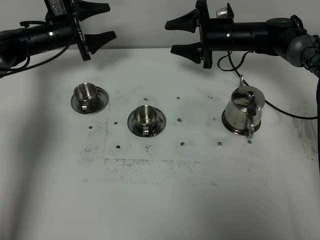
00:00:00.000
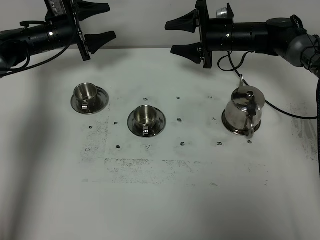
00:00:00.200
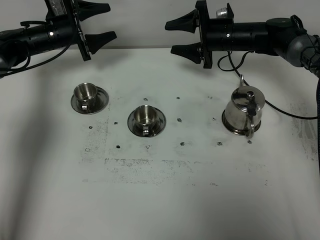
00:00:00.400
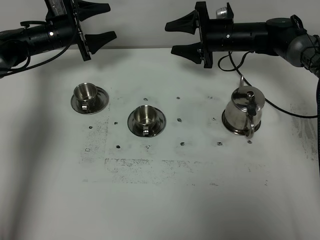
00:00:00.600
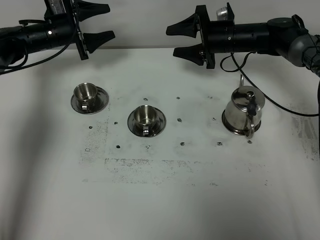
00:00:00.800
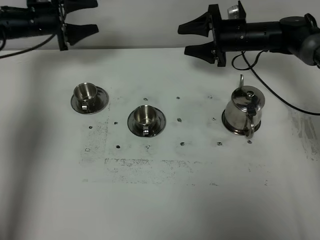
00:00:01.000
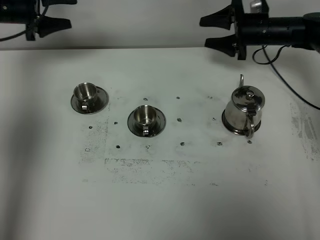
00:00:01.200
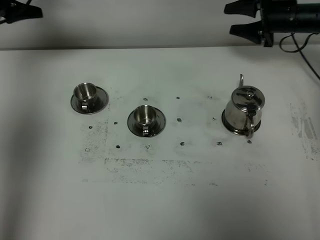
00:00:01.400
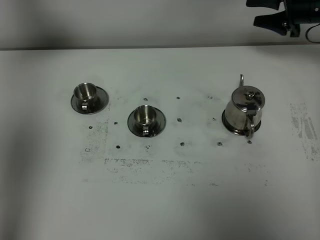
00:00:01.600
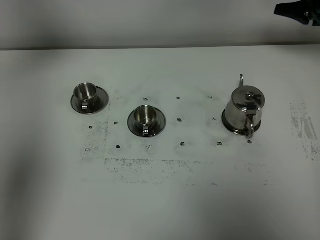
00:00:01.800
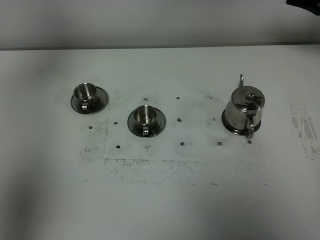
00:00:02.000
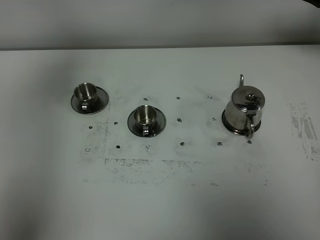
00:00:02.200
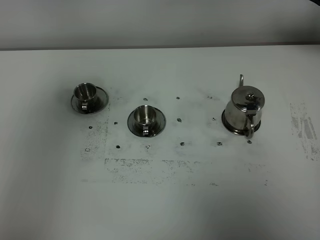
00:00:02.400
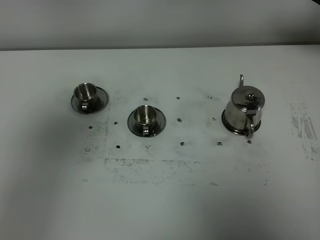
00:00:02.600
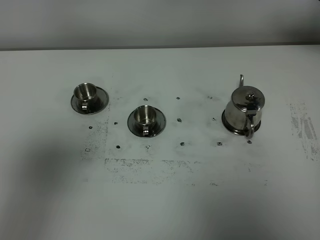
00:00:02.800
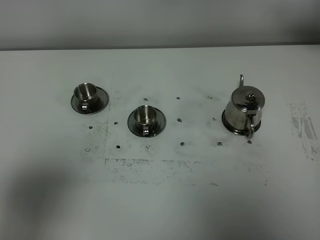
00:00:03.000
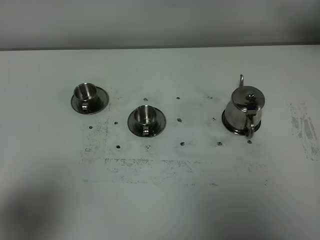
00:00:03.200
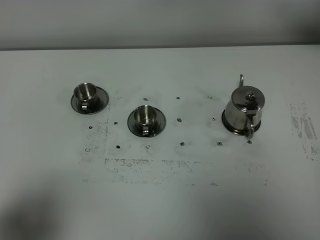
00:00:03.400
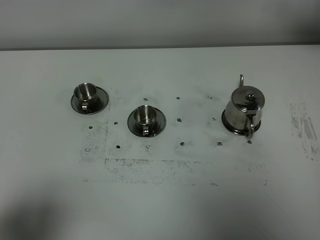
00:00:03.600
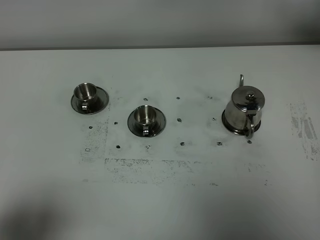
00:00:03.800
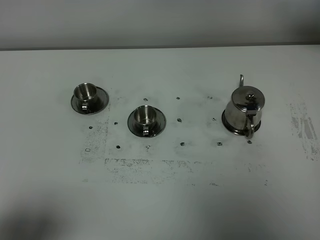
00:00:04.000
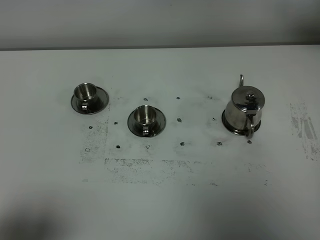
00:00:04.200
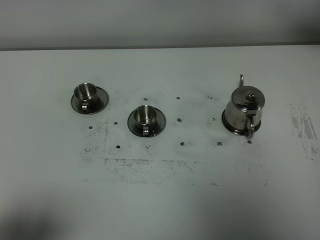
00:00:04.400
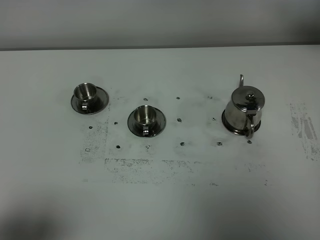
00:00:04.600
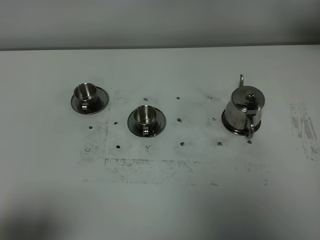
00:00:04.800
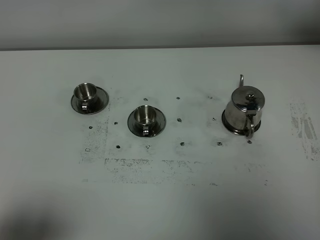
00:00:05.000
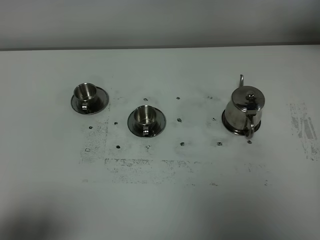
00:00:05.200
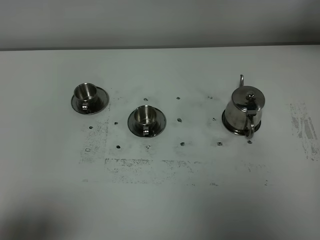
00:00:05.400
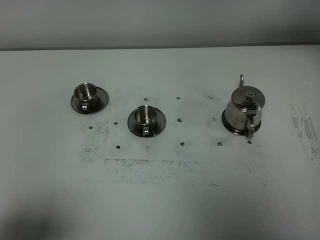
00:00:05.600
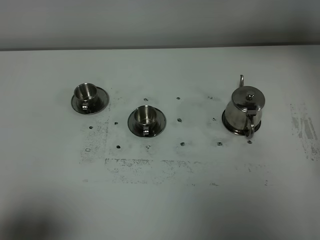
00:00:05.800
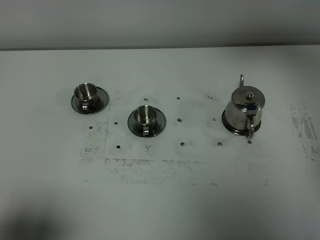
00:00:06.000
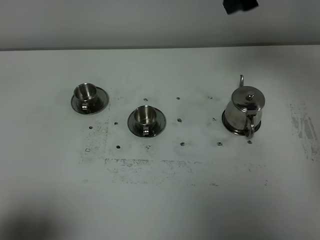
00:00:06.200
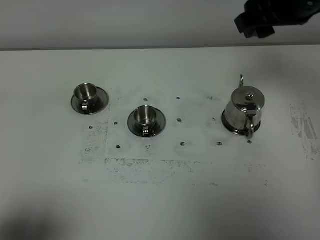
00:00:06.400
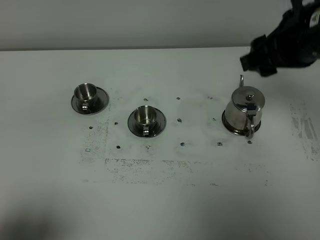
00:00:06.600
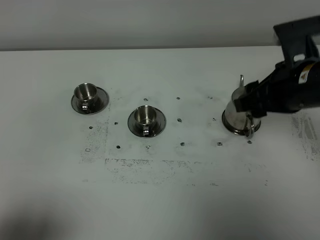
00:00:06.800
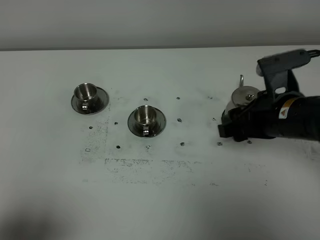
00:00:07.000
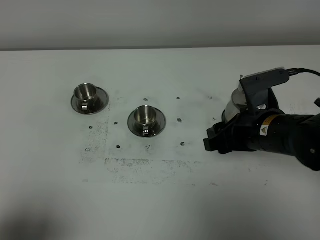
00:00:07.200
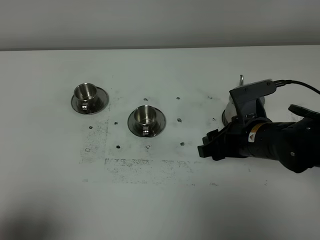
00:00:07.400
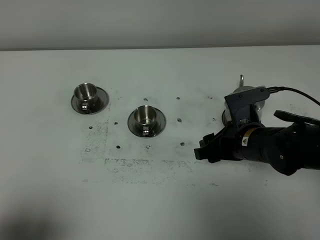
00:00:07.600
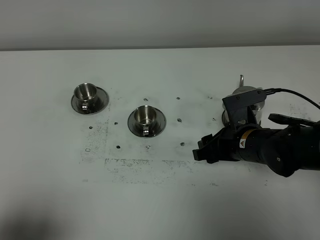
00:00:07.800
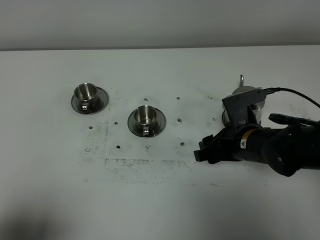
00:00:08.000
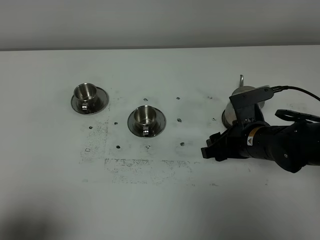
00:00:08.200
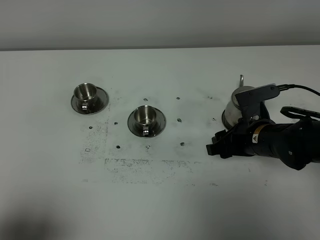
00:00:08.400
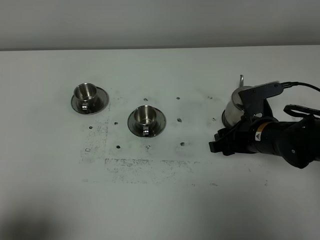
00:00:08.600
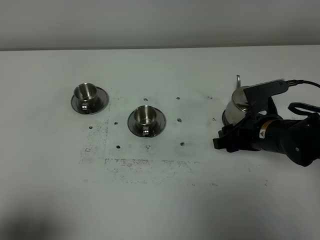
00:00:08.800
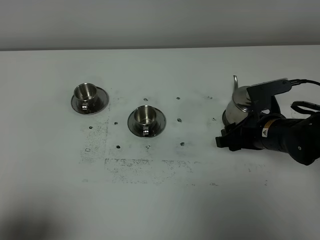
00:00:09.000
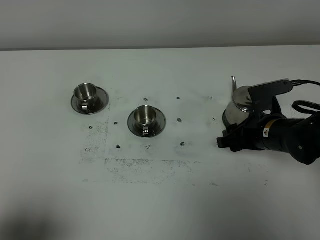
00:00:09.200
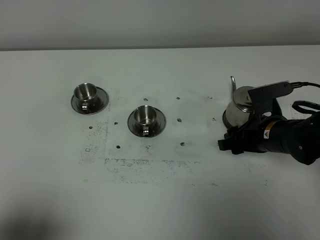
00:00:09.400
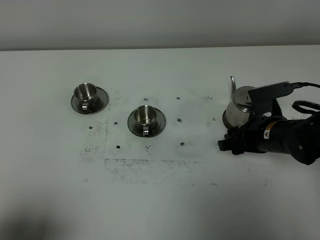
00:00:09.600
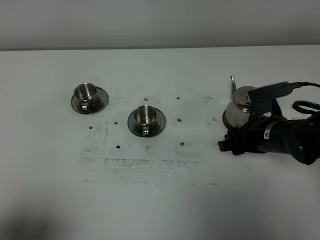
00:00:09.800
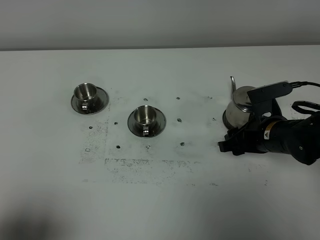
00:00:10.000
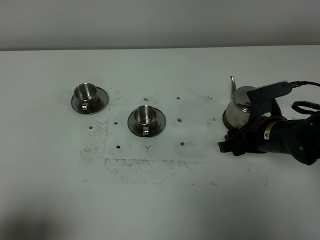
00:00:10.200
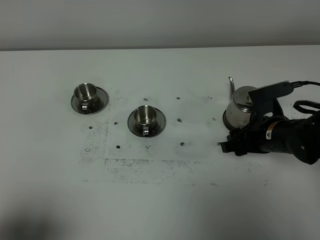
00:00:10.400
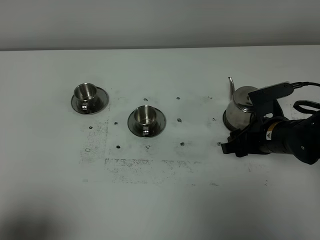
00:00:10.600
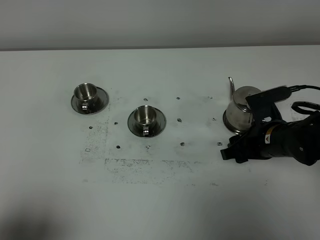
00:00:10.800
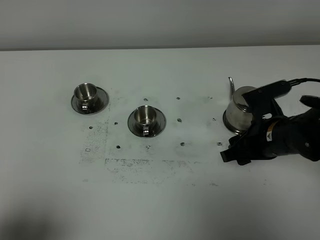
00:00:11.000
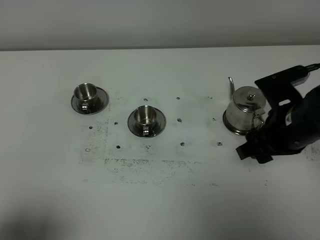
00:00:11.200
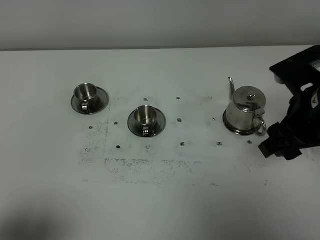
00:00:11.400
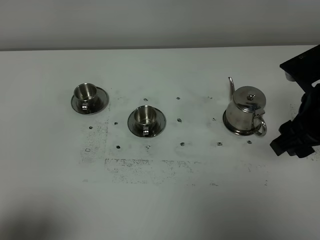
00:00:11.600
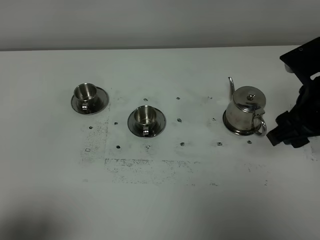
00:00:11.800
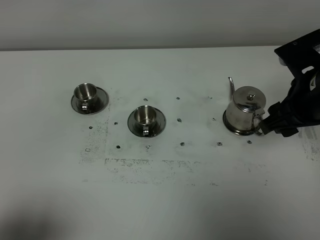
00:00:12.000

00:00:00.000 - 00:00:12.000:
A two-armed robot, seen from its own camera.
Task of the whole recording: grasp the stainless steel teapot and pour the tea into the two stainless steel teacups one by one, put the stainless steel teapot back in its original place.
00:00:00.000 - 00:00:01.600: The right gripper travels to the right and upward by some 20 cm; the left gripper shifts roughly 30 cm upward, to the left and backward.
00:00:01.600 - 00:00:03.000: The right gripper goes about 10 cm upward. The left gripper is displaced backward by approximately 40 cm.
00:00:03.000 - 00:00:04.400: The left gripper shifts about 10 cm downward and backward.
00:00:04.400 - 00:00:06.000: The right gripper heads to the left, upward and backward, covering about 25 cm.
00:00:06.000 - 00:00:07.600: The right gripper travels downward by approximately 30 cm.
00:00:07.600 - 00:00:09.000: The grippers move only a little.
00:00:09.000 - 00:00:10.400: The two grippers keep their place.
00:00:10.400 - 00:00:12.000: The right gripper is displaced upward by about 15 cm.

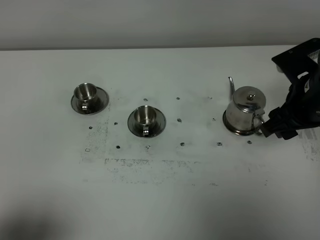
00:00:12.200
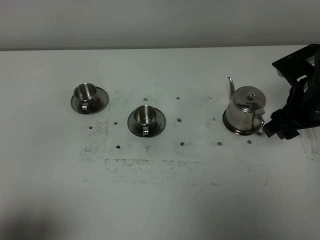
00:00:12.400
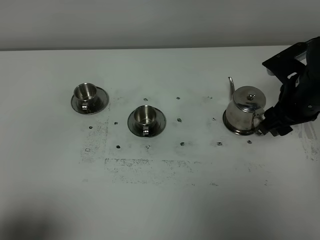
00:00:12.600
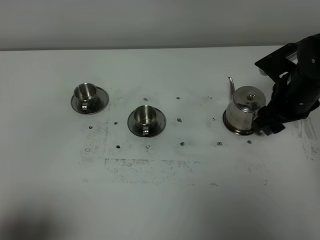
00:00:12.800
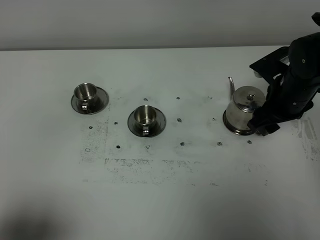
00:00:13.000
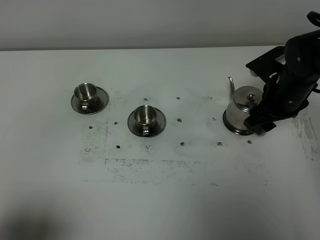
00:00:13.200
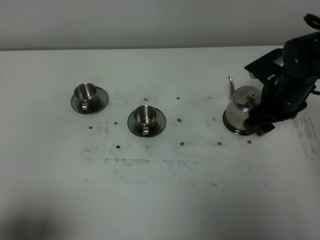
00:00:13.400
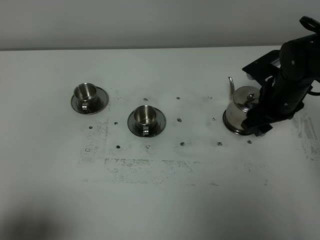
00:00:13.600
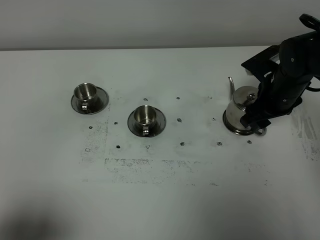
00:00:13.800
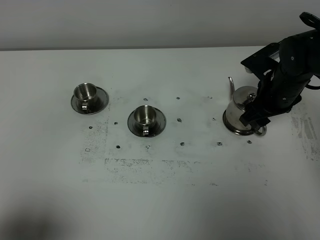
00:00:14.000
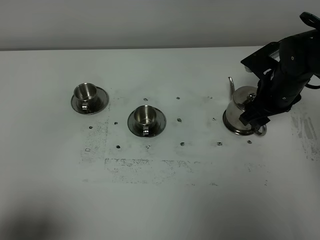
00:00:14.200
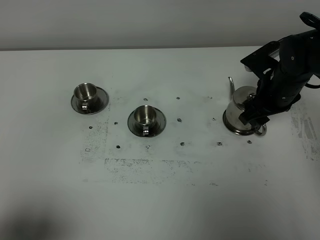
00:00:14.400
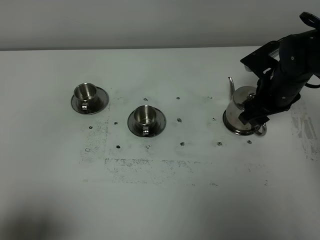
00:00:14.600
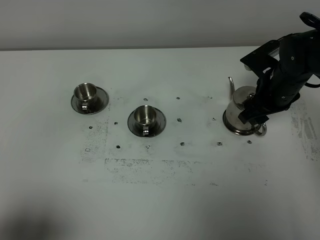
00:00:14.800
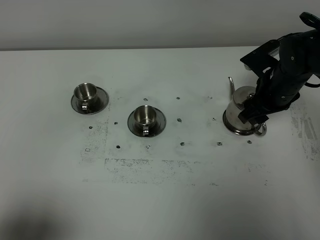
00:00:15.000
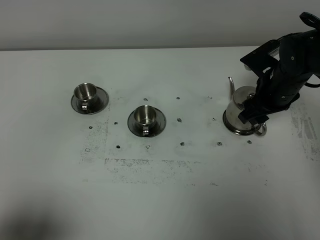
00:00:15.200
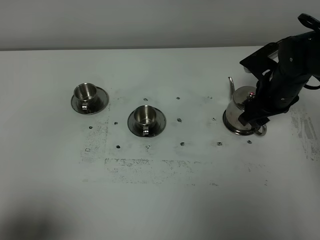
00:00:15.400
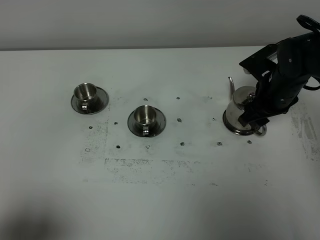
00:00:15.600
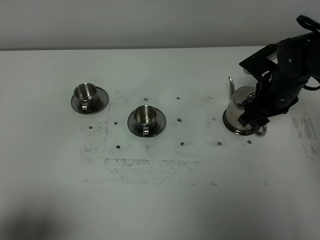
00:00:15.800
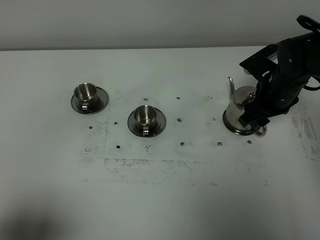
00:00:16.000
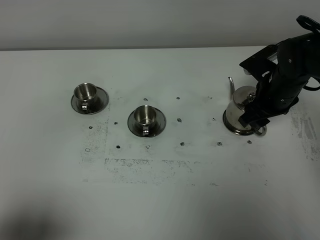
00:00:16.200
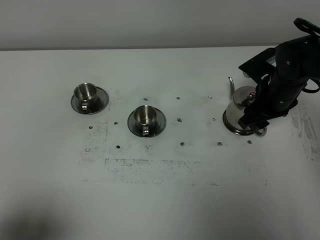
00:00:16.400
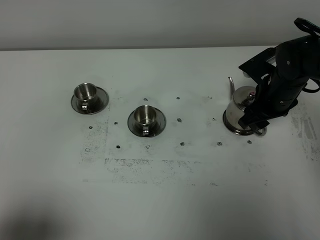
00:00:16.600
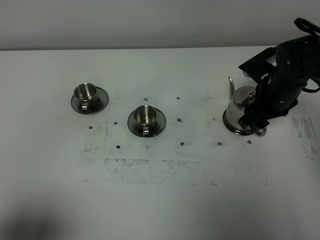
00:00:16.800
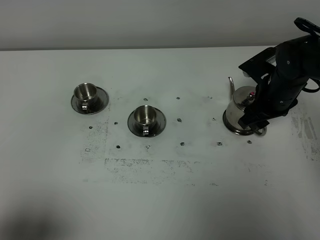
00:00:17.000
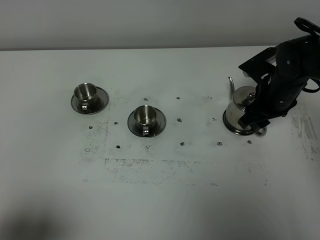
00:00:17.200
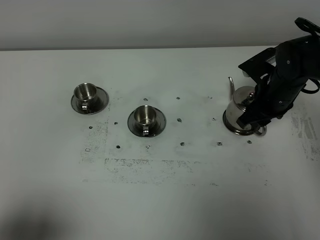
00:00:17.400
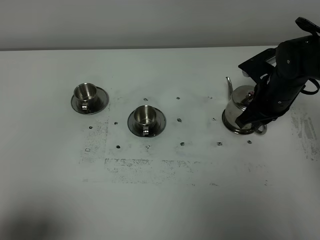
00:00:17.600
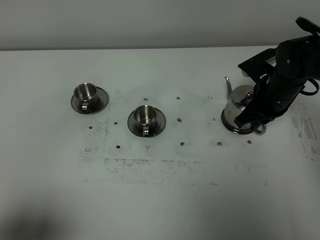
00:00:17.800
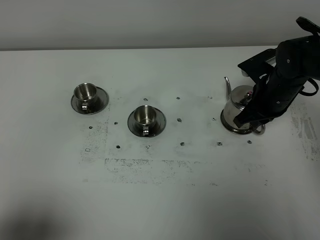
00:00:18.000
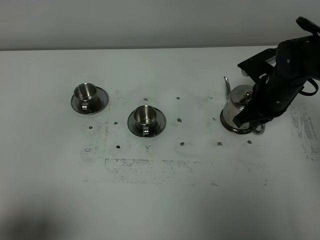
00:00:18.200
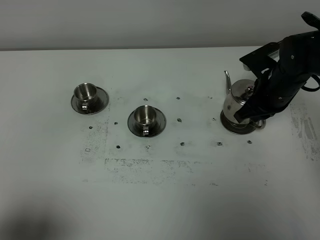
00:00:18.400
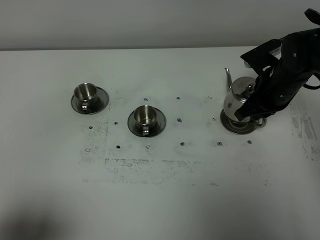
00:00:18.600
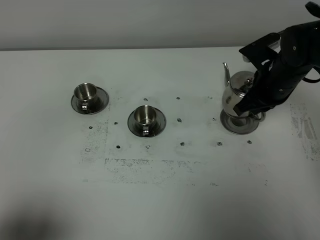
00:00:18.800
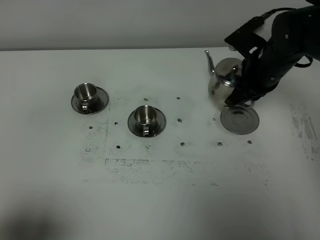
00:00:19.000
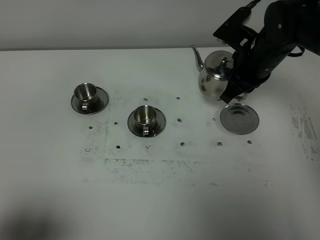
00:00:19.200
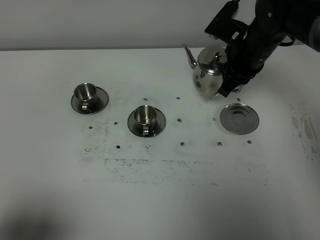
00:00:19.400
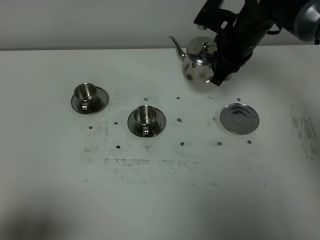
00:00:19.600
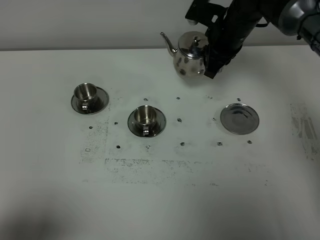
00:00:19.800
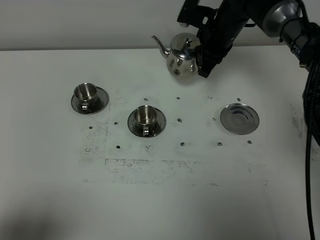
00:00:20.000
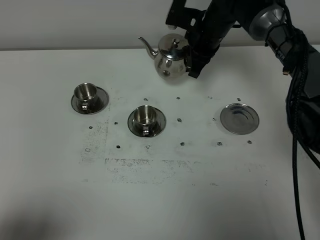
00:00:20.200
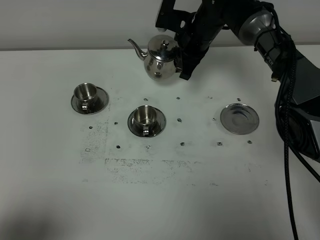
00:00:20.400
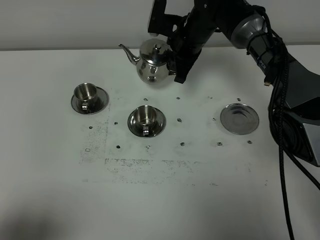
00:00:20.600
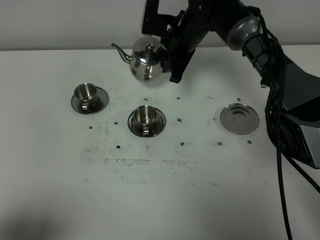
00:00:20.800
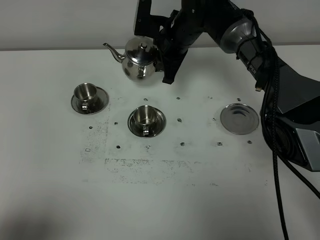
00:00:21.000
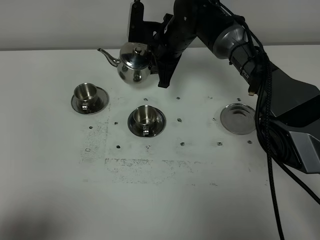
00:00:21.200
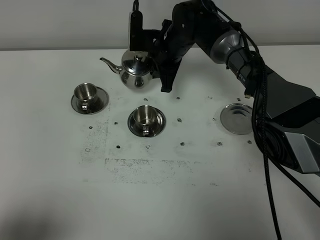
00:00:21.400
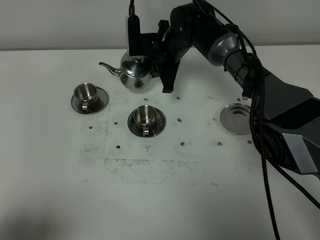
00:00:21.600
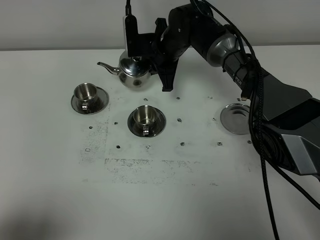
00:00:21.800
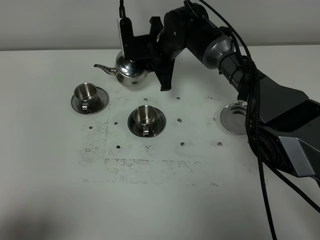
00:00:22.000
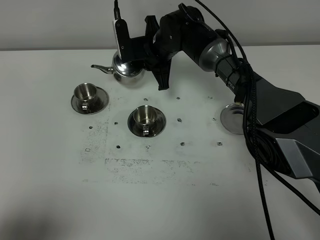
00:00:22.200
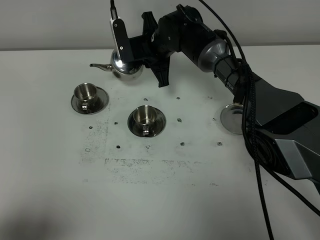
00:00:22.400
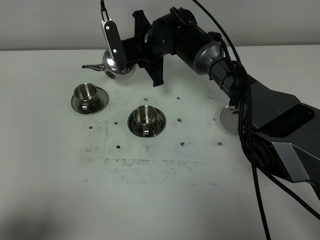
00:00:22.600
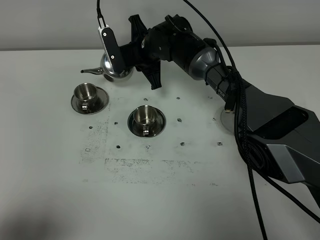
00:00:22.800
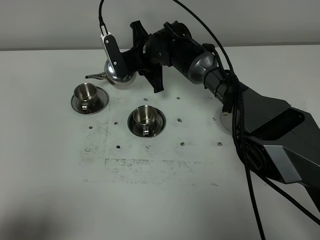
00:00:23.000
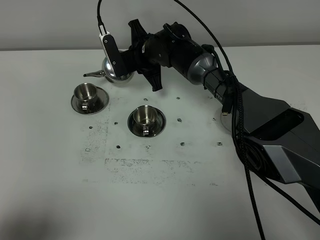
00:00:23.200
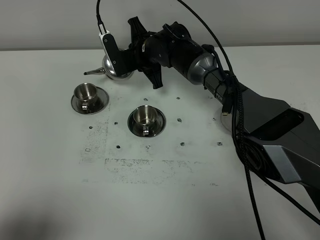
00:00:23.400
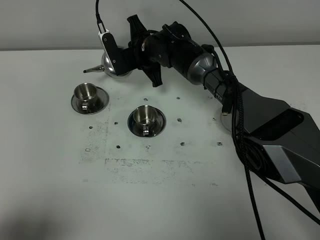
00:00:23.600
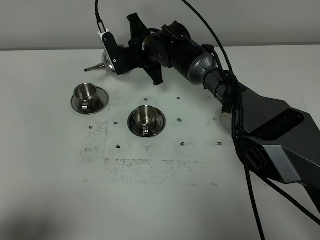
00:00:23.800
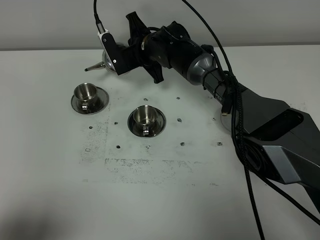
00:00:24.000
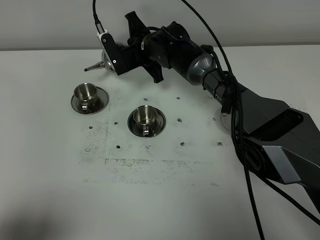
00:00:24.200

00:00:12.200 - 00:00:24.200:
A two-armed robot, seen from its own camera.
Task of the whole recording: grasp the stainless steel teapot and pour the tea into the two stainless steel teacups one by one, put the stainless steel teapot back in its original place.
Step, 00:00:12.200 - 00:00:18.400: Pick up the teapot with the right gripper.
00:00:12.200 - 00:00:13.800: The right gripper heads forward and downward, covering roughly 10 cm.
00:00:13.800 - 00:00:15.200: Neither gripper changes place.
00:00:15.200 - 00:00:16.600: The grippers move only a little.
00:00:16.600 - 00:00:18.200: The right gripper closes up.
00:00:18.200 - 00:00:19.800: The right gripper goes roughly 15 cm forward, upward and to the left.
00:00:19.800 - 00:00:21.200: The right gripper shifts approximately 10 cm to the left.
00:00:22.600 - 00:00:24.200: The grippers move only a little.
